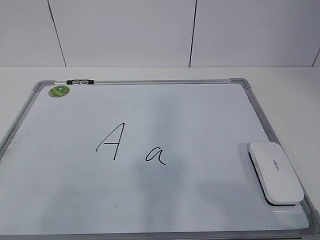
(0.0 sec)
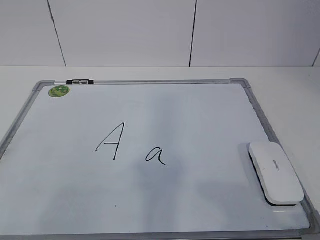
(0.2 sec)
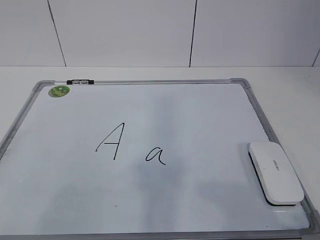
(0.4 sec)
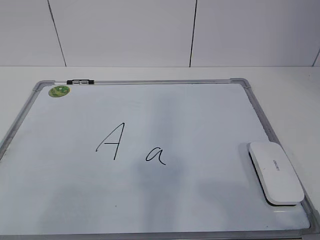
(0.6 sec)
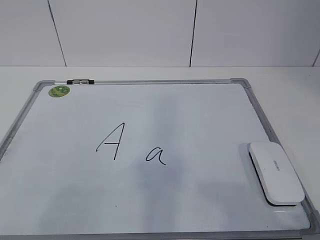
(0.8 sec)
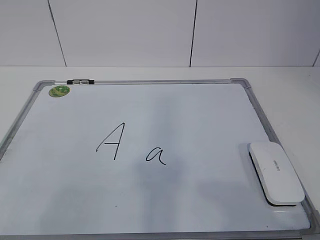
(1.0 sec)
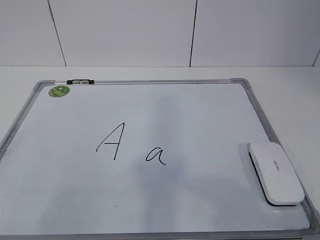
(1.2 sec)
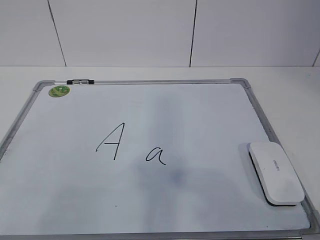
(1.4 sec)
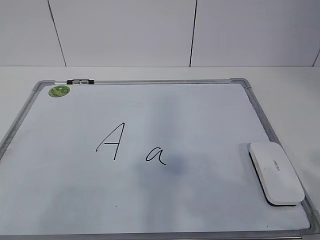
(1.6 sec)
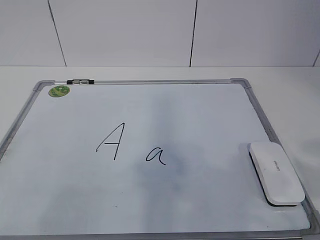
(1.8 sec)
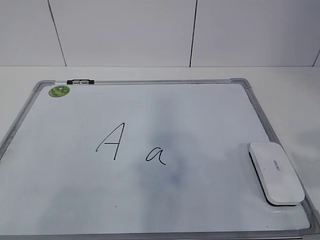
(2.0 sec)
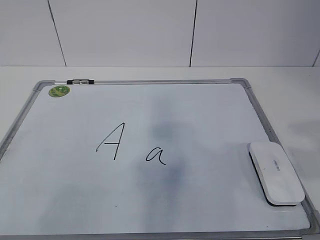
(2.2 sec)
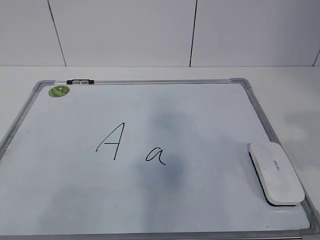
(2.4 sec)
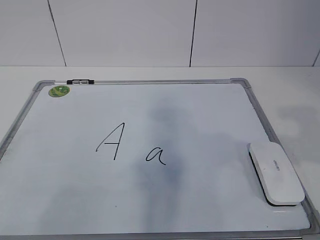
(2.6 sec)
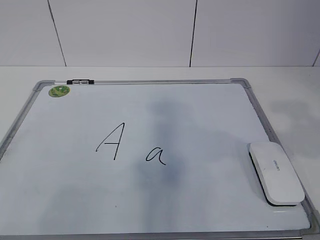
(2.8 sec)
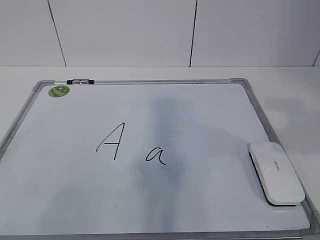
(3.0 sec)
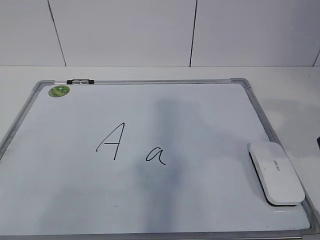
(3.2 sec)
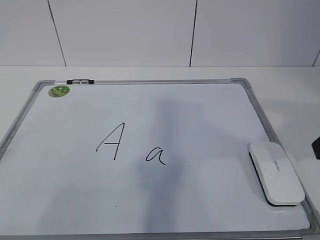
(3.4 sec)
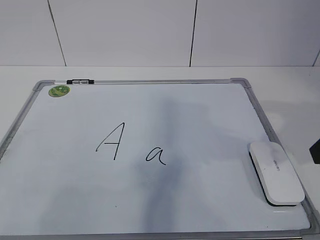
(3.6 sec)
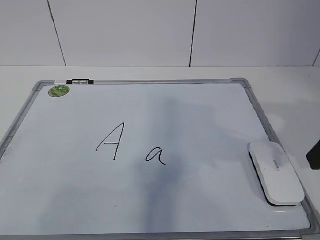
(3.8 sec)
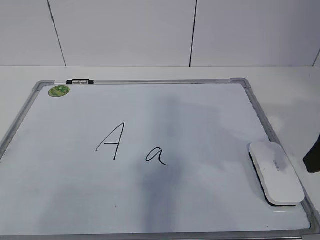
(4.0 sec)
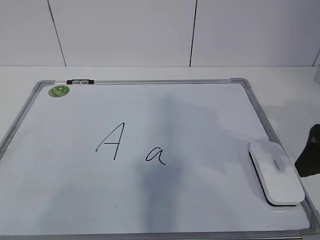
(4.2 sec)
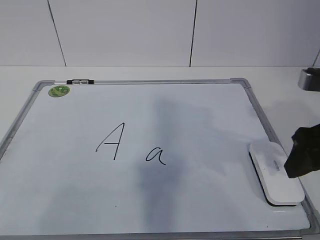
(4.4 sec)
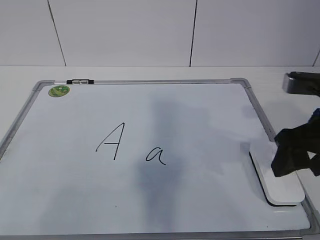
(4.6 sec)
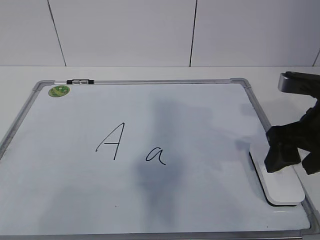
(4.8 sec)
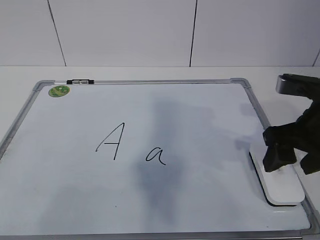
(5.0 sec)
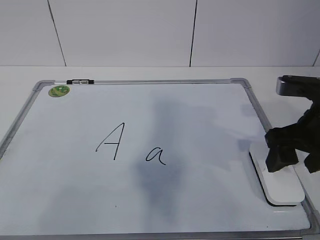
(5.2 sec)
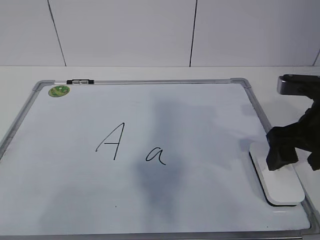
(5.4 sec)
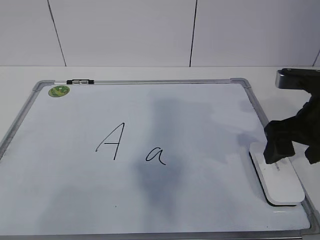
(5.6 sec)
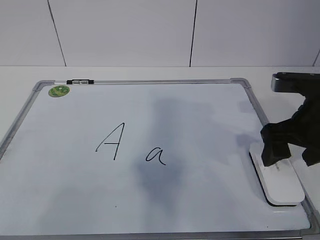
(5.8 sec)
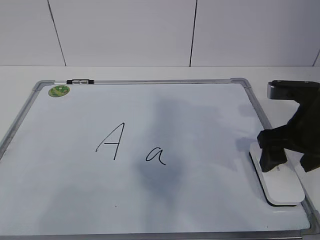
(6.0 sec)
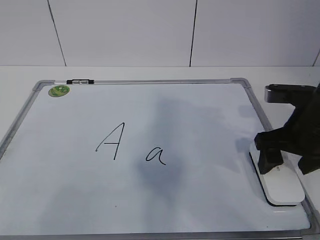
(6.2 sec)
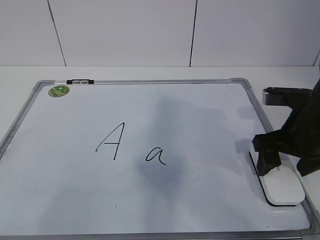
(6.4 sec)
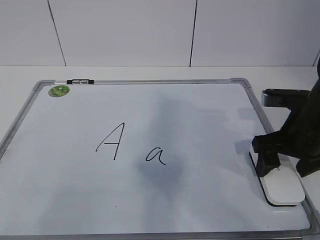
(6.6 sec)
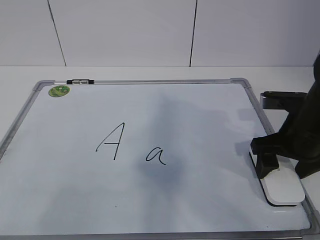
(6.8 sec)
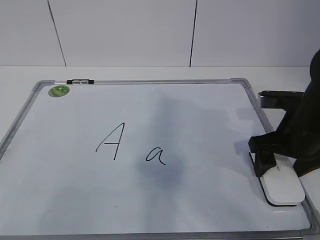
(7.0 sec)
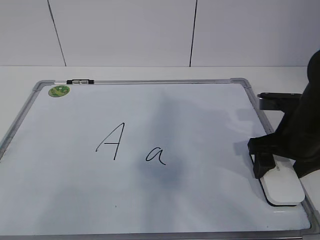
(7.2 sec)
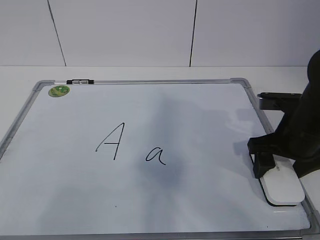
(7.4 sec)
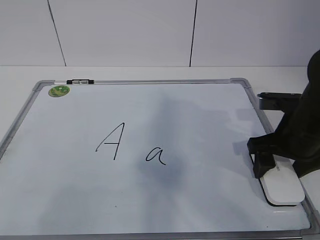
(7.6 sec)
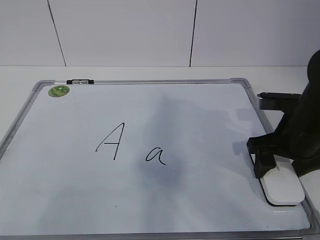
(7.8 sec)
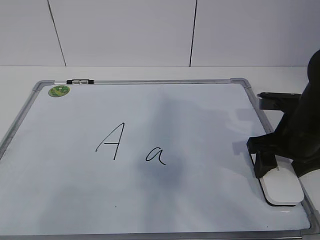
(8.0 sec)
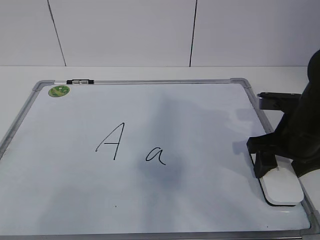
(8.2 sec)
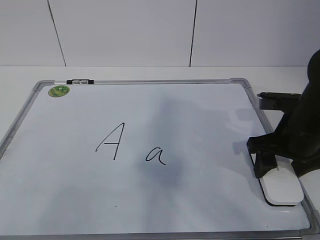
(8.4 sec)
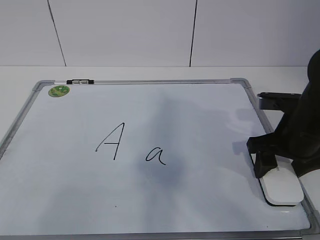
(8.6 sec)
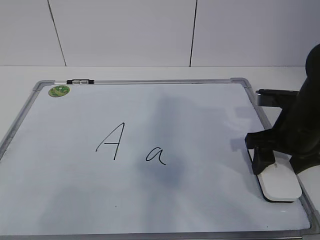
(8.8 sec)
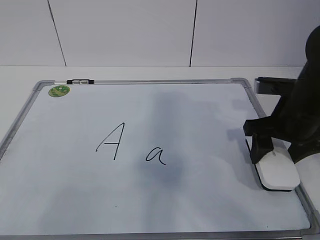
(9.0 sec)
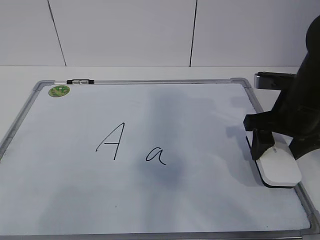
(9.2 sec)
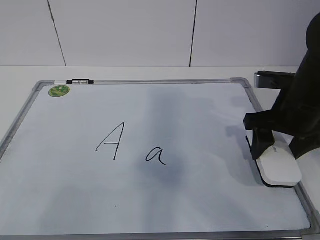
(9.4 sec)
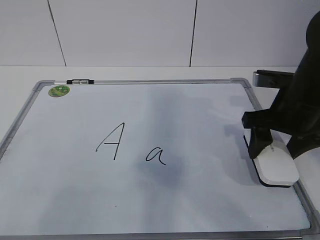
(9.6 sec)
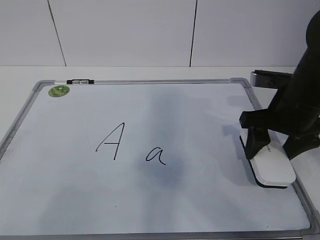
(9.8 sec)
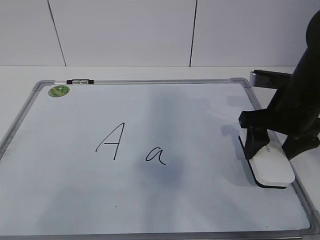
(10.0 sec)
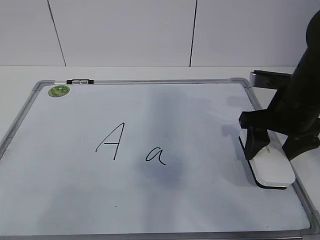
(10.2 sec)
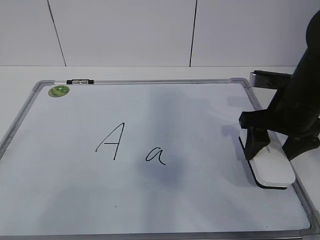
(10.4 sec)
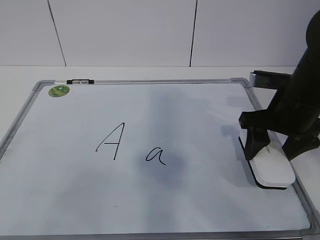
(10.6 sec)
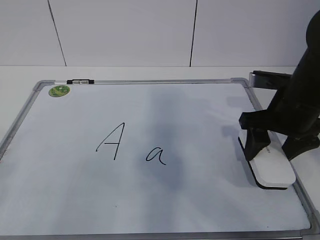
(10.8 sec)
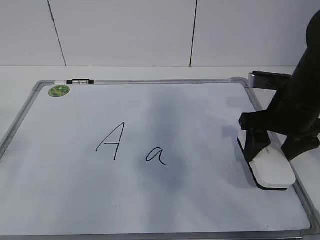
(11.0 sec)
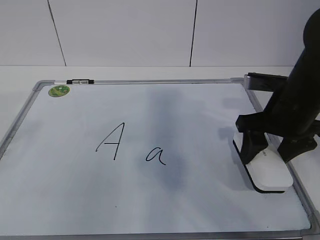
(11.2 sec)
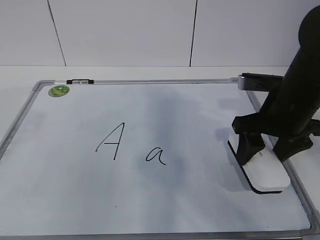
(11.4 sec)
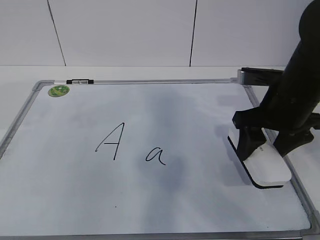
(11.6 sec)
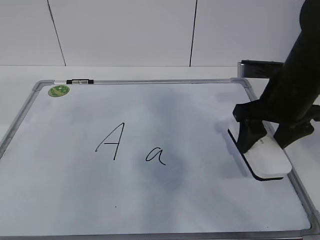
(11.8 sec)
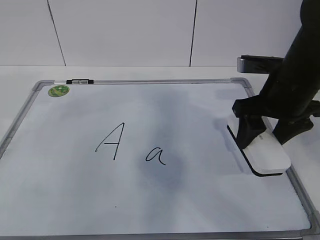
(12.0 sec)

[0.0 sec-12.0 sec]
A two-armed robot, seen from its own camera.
Task of the whole recording: pick up the eraser on the blackboard and erase the letter "a".
Step, 0.0 sec to 6.4 sec: Grab the eraser with your right hand.
Step, 6.6 sec to 11.4 sec: Hold the drawing board steady with your left hand.
3.0 sec to 4.4 sec: The right gripper goes about 10 cm downward and forward.
4.4 sec to 6.0 sec: The right gripper ends up approximately 5 cm from where it was, and opens up.
6.0 sec to 7.6 sec: There are only small adjustments of the grippers.
7.6 sec to 9.0 sec: The right gripper closes its fingers.
9.0 sec to 10.4 sec: The two grippers keep their place.

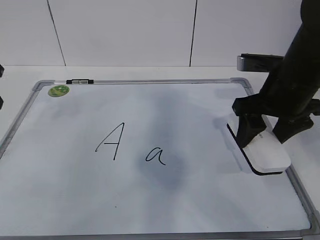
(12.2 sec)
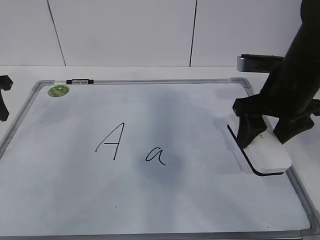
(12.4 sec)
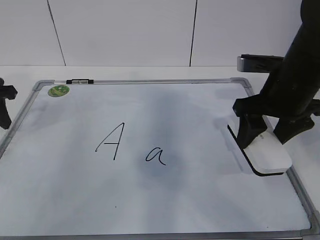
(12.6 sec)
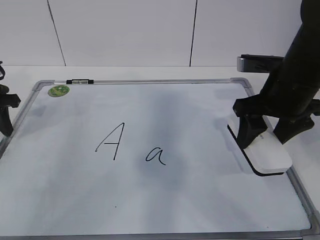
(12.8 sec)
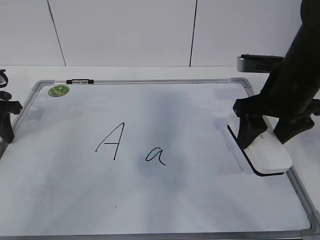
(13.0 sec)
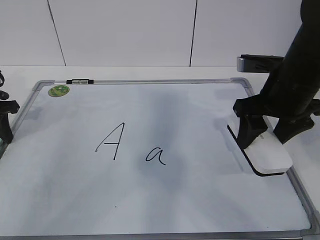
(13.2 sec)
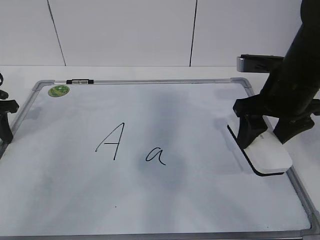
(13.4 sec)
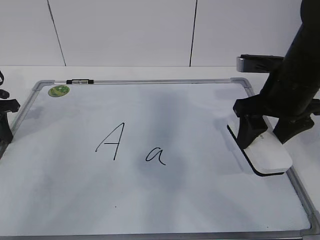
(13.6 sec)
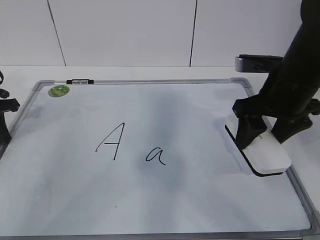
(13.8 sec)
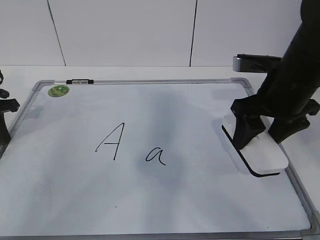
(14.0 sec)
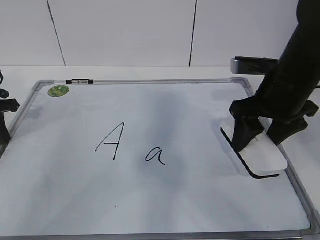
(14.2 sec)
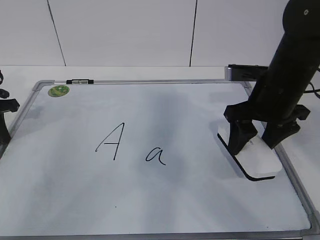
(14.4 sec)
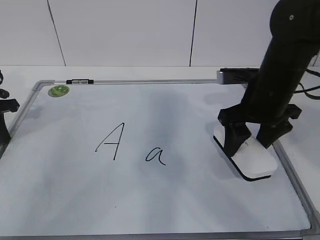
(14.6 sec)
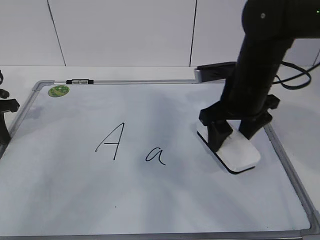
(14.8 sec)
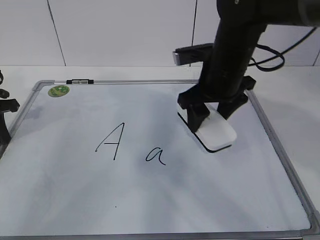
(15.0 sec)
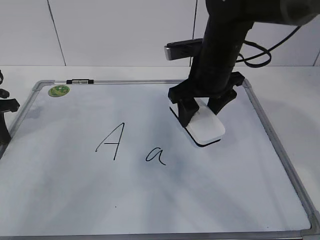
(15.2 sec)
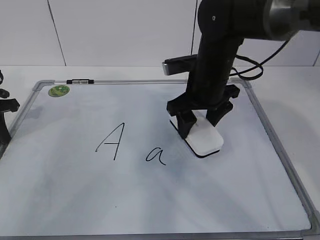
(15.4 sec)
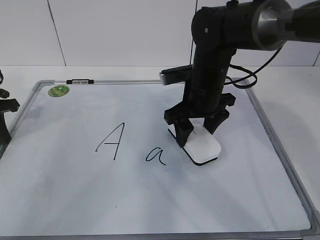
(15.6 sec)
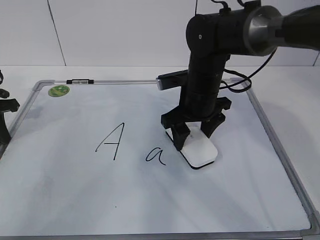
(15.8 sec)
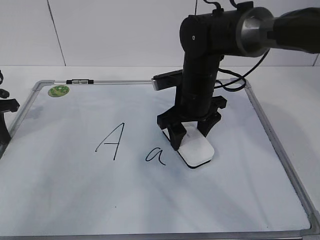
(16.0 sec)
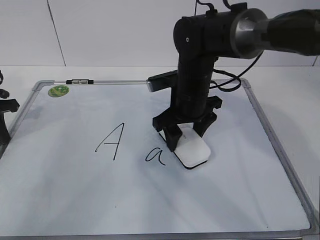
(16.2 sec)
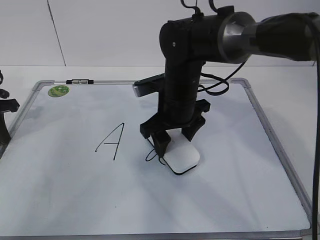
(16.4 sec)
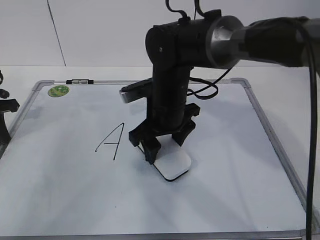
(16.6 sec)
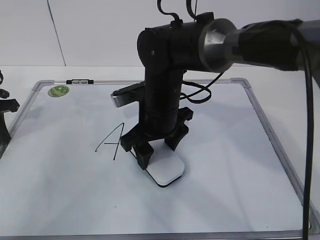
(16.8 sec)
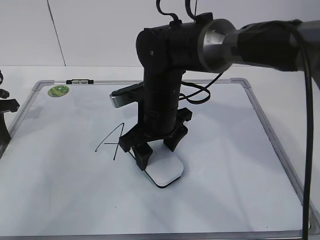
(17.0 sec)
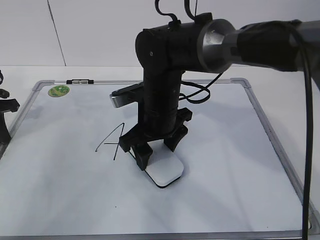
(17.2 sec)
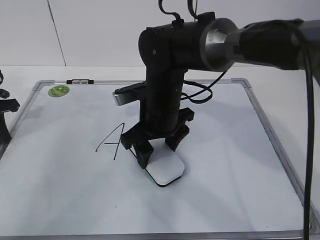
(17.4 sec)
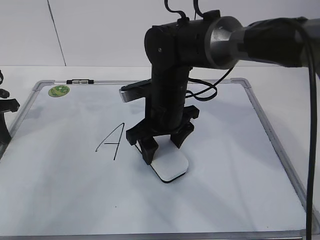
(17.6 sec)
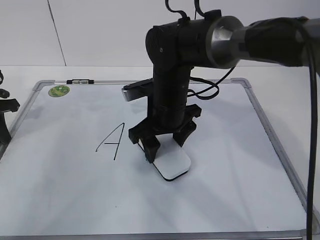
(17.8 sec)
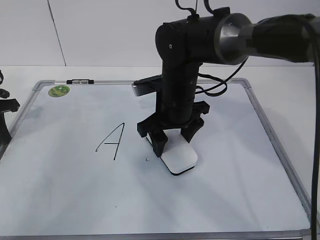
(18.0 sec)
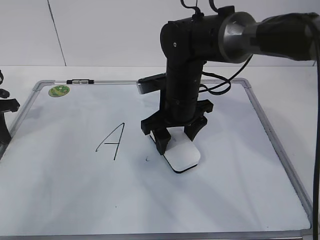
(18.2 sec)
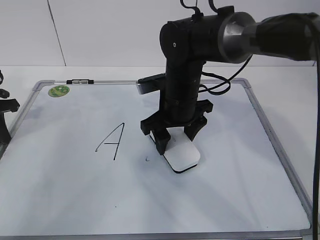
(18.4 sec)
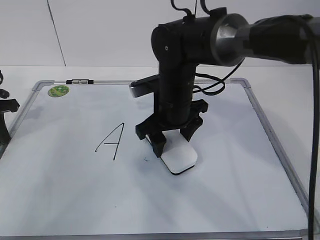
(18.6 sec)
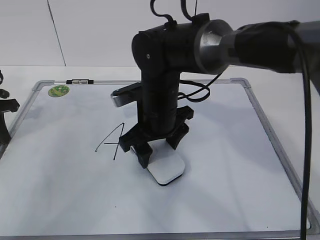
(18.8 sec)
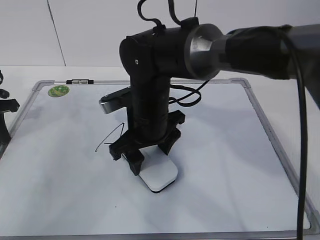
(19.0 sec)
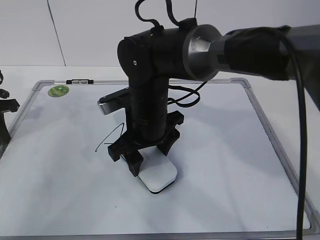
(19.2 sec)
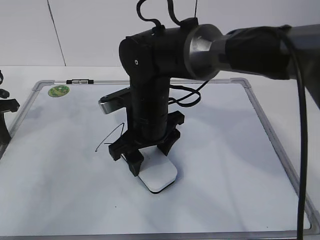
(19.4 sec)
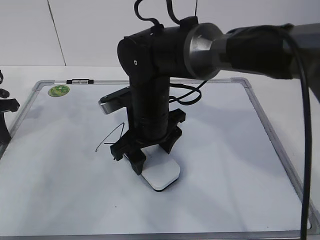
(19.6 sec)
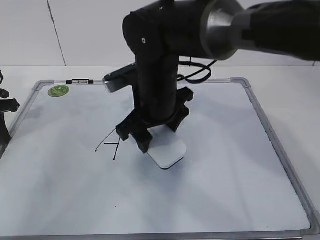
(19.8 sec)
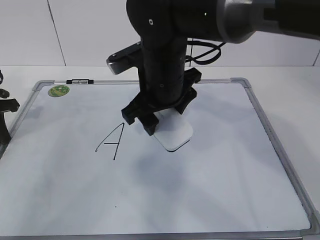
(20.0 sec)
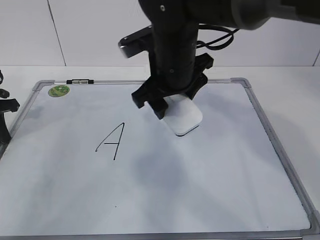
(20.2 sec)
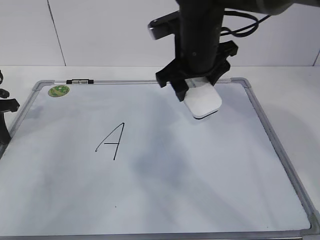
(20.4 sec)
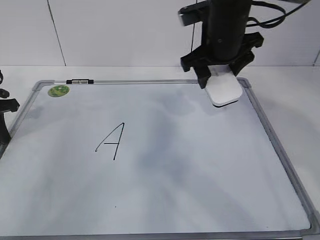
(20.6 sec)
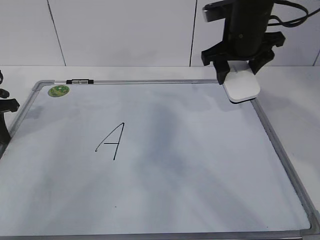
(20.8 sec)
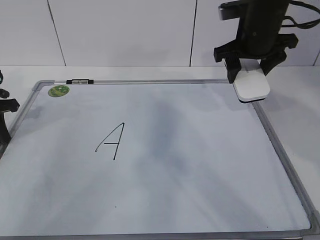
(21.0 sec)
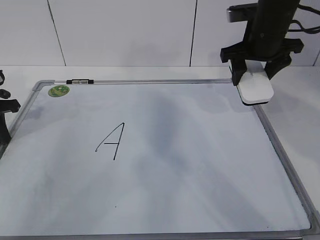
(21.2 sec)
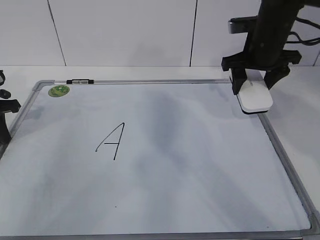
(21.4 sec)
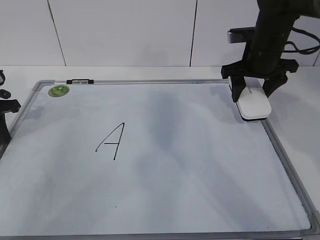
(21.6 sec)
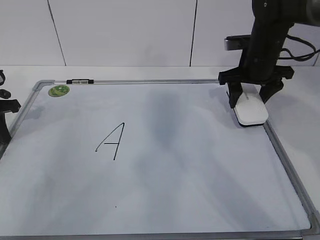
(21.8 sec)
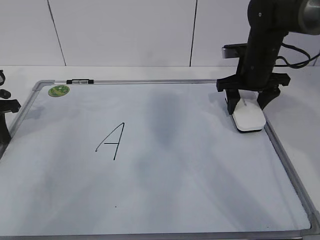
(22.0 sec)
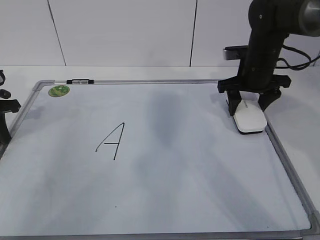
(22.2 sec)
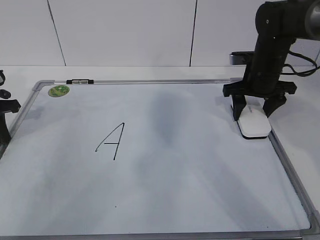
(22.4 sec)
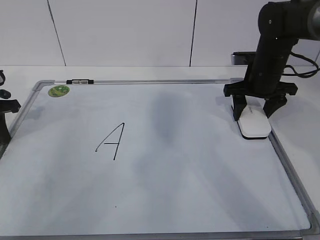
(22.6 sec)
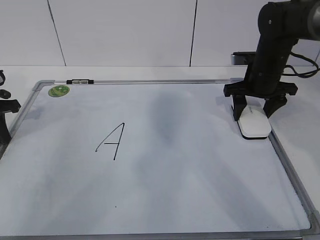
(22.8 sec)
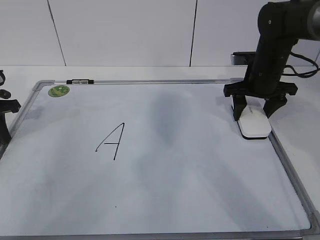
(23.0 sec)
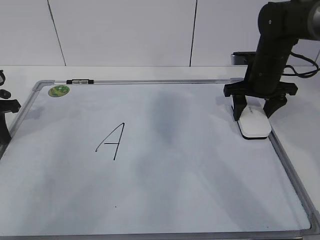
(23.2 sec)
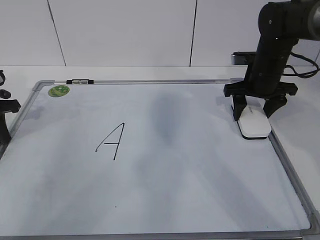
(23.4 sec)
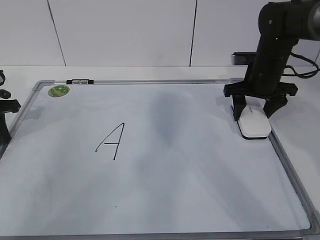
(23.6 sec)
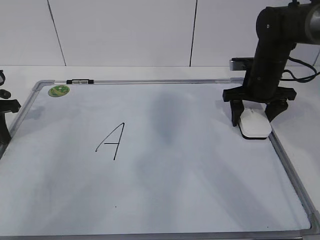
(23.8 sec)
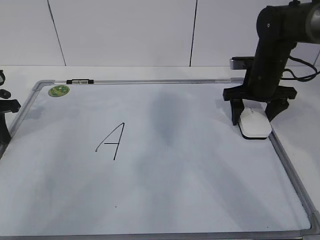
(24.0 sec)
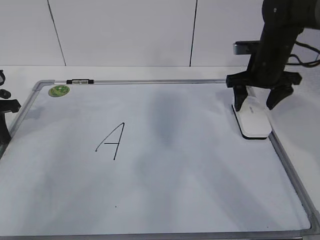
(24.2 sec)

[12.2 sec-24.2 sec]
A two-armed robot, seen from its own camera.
Task of the whole recording: pick up the eraser on the blackboard and erase the letter "a".
Step, 12.2 sec to 16.2 sec: Erase the letter a with your right hand.
Step, 16.4 sec to 19.8 sec: Put down the eraser with your right hand.
12.2 sec to 13.8 sec: The left gripper shifts some 10 cm downward, and closes its fingers.
13.8 sec to 15.2 sec: The right gripper is displaced to the left and forward by some 10 cm.
15.2 sec to 16.6 sec: The right gripper moves to the left and downward, approximately 10 cm.
16.6 sec to 18.2 sec: The grippers stay close to where they were, moving slightly.
18.2 sec to 19.8 sec: The right gripper ends up some 10 cm from where it was.
19.8 sec to 21.2 sec: The right gripper travels to the right and forward by approximately 20 cm.
21.2 sec to 22.6 sec: The right gripper is displaced downward by some 10 cm.
22.6 sec to 24.2 sec: The right gripper opens up.
